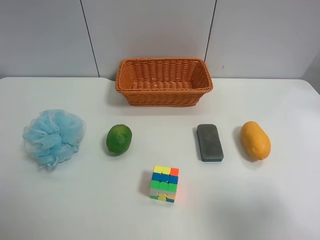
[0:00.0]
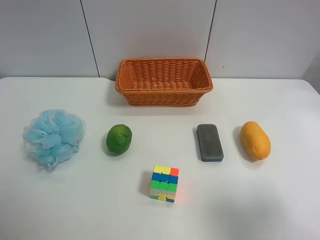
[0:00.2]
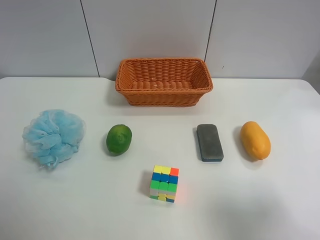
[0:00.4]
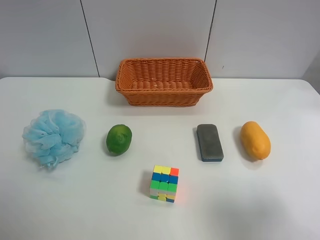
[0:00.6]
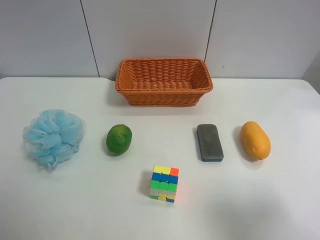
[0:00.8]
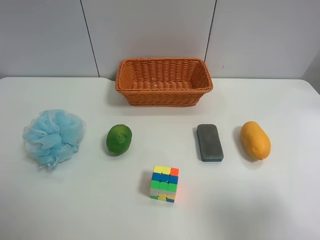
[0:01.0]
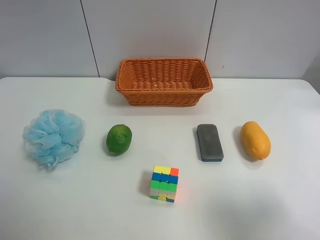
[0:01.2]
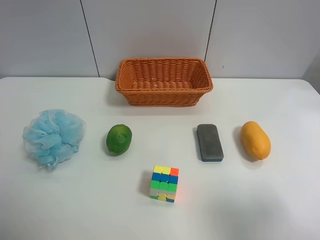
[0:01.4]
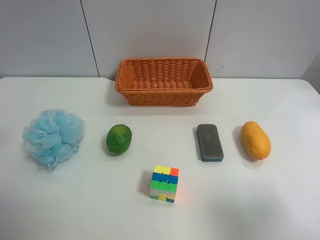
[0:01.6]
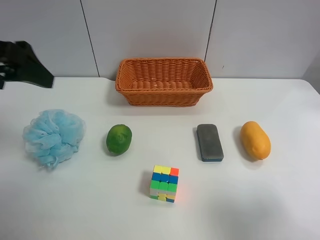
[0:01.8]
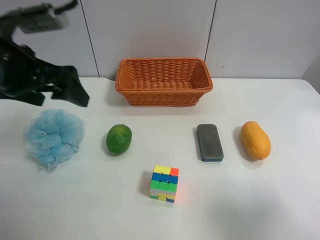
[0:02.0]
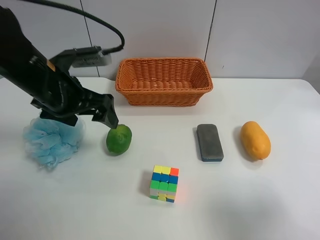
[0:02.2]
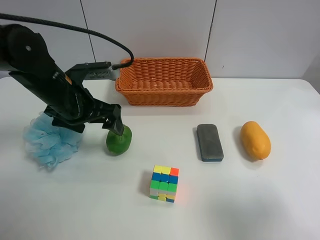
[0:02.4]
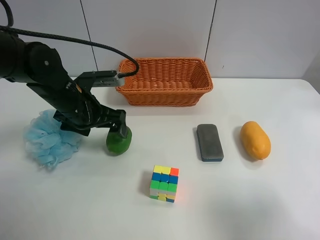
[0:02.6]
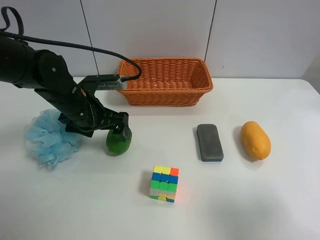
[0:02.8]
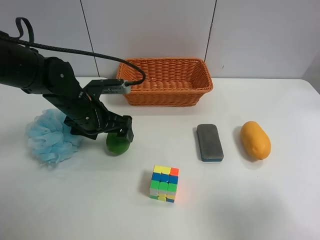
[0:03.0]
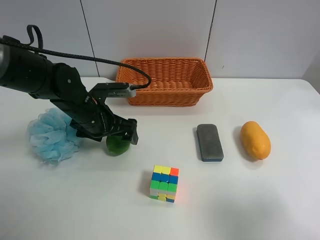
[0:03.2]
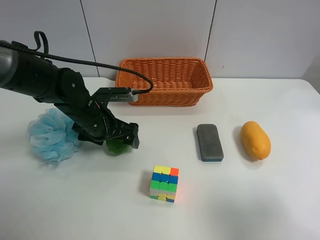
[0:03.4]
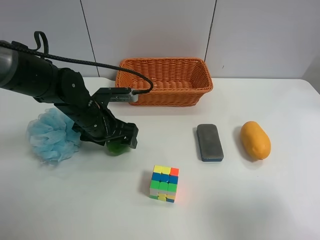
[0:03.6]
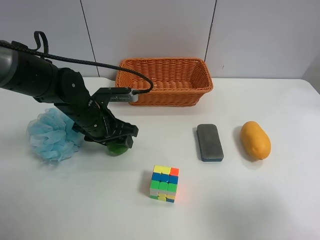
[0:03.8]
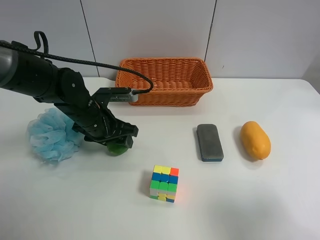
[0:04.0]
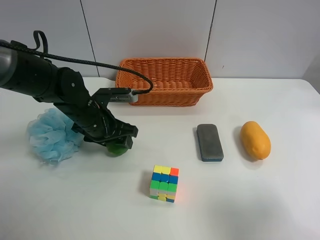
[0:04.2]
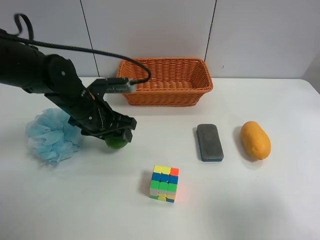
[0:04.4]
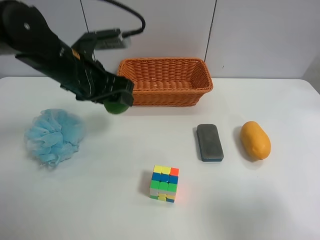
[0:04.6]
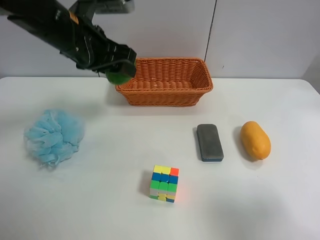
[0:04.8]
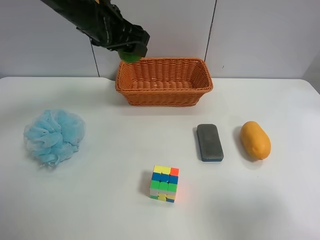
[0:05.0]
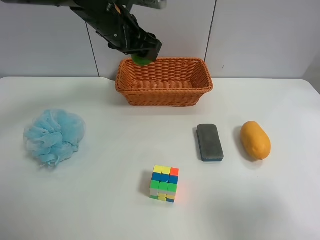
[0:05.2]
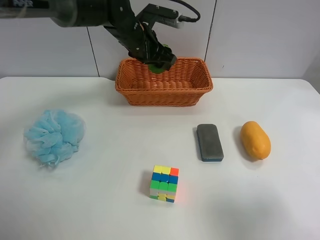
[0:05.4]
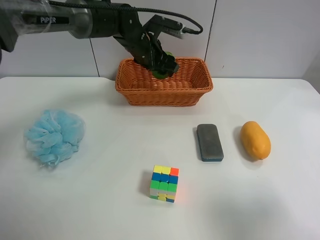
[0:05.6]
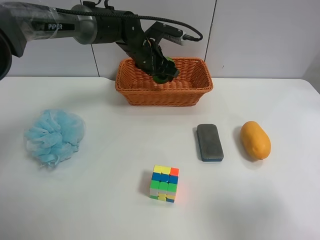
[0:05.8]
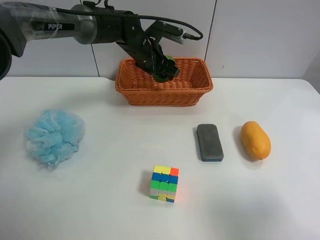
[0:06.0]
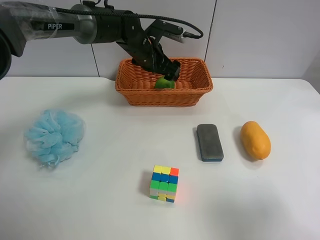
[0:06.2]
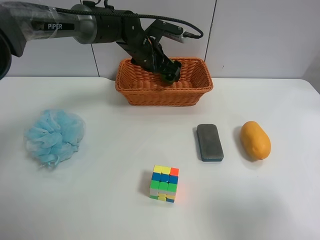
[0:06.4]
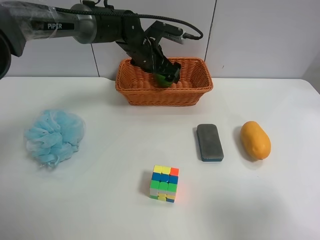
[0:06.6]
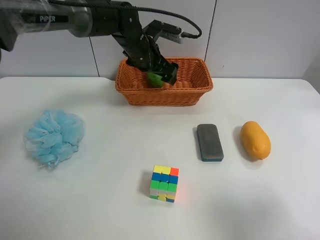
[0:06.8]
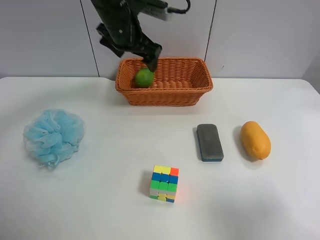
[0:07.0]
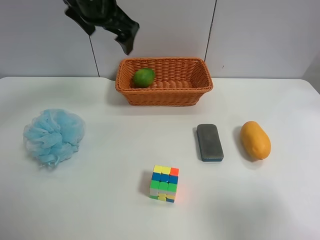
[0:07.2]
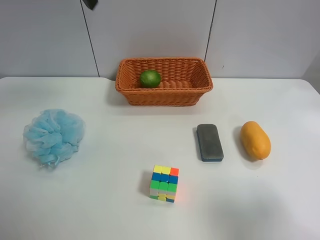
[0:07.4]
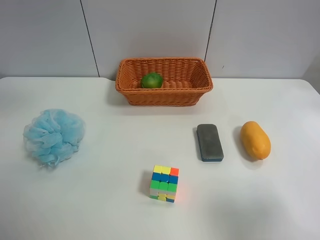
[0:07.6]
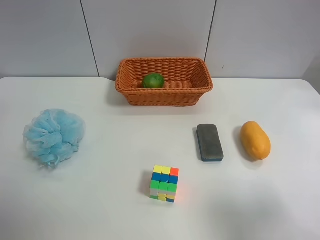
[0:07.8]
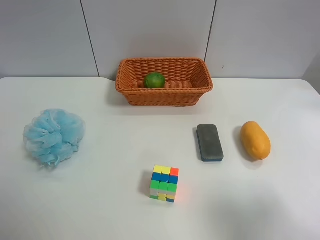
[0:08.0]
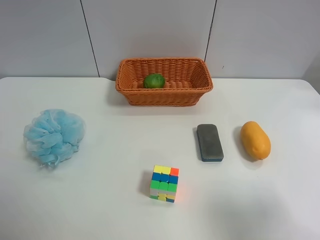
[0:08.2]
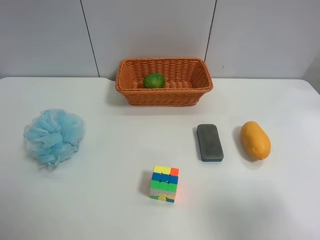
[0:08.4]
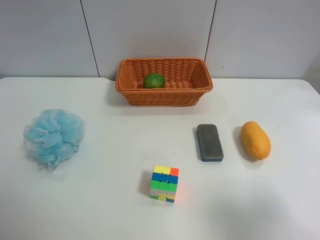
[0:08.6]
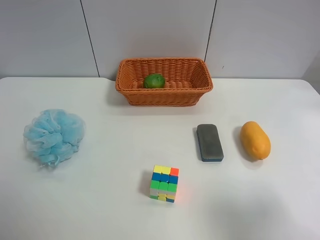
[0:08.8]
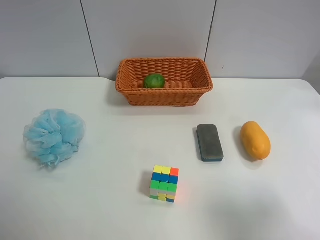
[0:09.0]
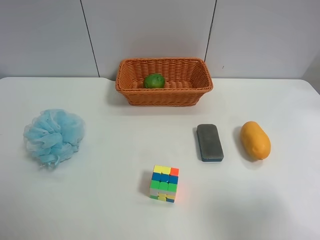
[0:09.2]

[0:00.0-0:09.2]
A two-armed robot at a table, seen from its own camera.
Task of the whole recording: use the left gripper to grab items from the table and place them in the basket.
Step, 0.0 to 3.6 s: Grasp the apple rubber puff with the left gripper.
Step, 3.8 to 6.6 s: Place the apple rubber puff into the basket with the left gripper.
1.6 to 3.0 s: The left gripper heads downward, to the right and forward, covering about 30 cm.
3.0 to 4.6 s: The left gripper travels upward by approximately 10 cm, and closes.
4.6 to 6.2 s: The left gripper travels forward and to the right by some 20 cm, and opens its fingers.
6.2 to 7.6 s: The left gripper goes approximately 40 cm upward, backward and to the left.

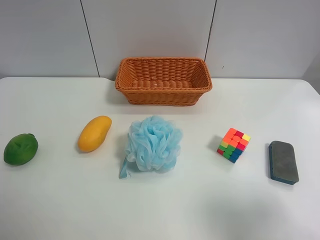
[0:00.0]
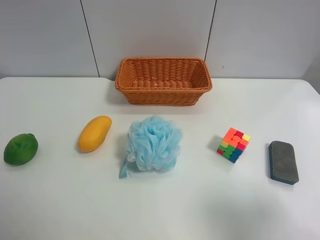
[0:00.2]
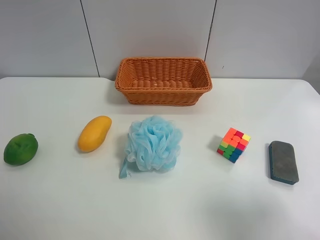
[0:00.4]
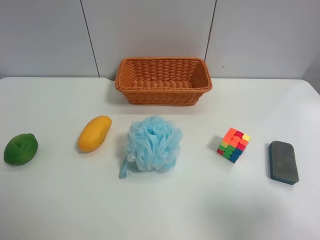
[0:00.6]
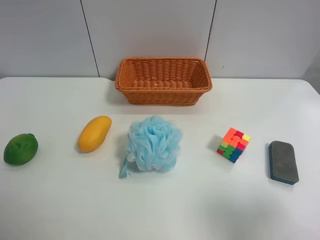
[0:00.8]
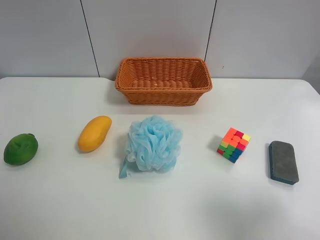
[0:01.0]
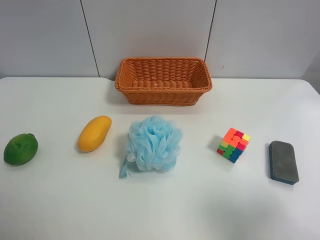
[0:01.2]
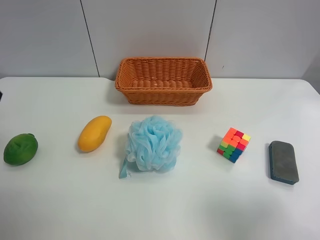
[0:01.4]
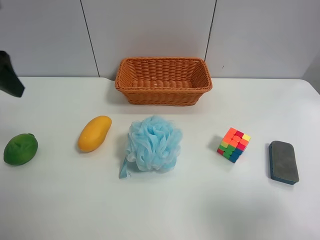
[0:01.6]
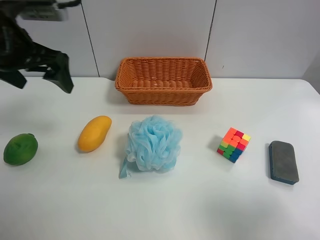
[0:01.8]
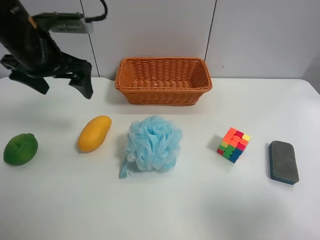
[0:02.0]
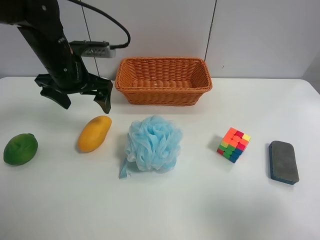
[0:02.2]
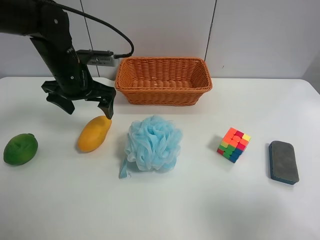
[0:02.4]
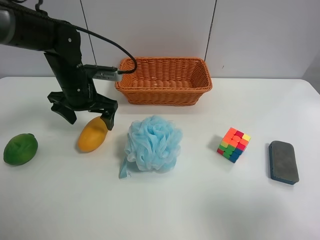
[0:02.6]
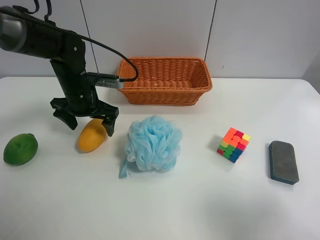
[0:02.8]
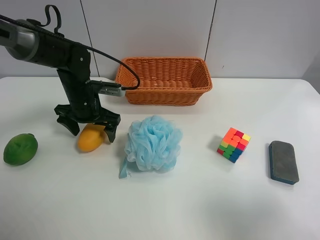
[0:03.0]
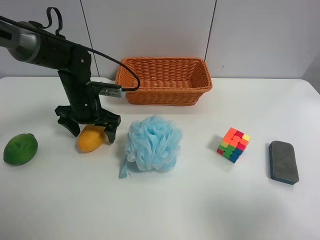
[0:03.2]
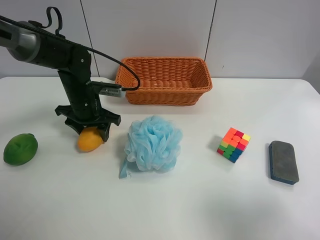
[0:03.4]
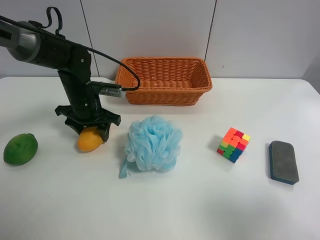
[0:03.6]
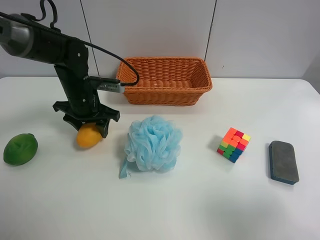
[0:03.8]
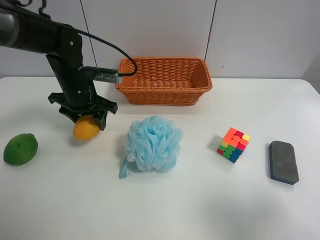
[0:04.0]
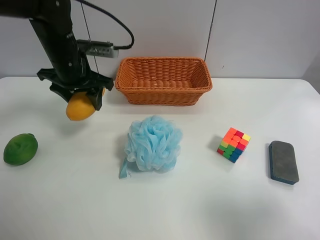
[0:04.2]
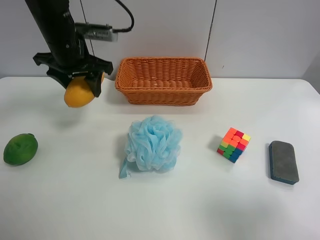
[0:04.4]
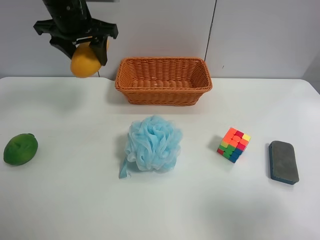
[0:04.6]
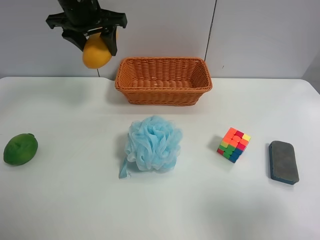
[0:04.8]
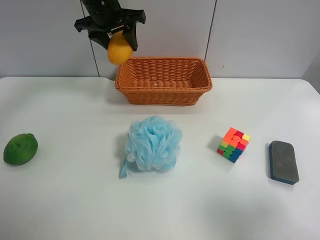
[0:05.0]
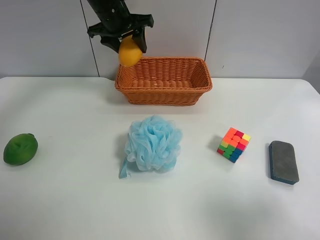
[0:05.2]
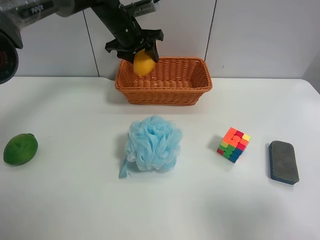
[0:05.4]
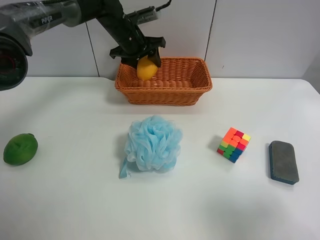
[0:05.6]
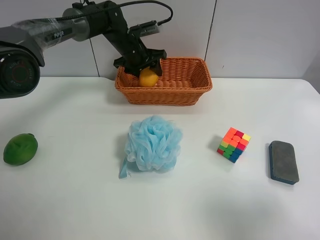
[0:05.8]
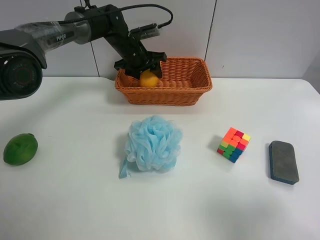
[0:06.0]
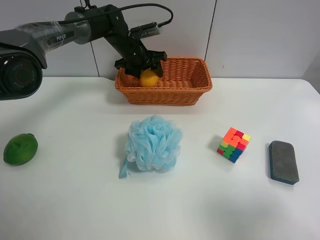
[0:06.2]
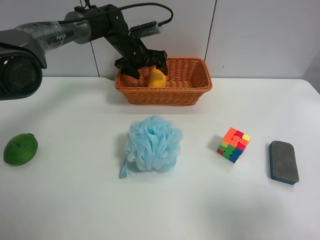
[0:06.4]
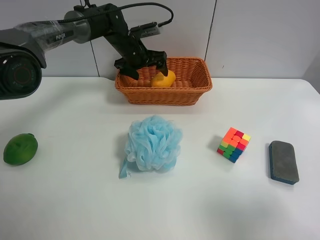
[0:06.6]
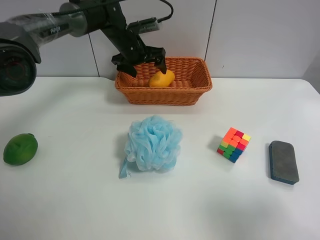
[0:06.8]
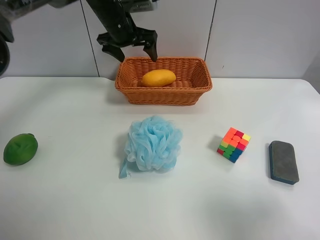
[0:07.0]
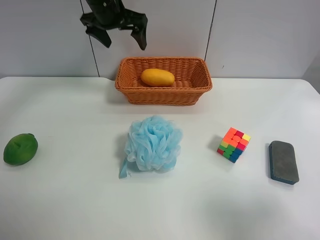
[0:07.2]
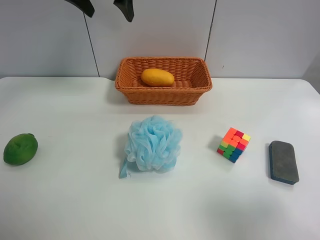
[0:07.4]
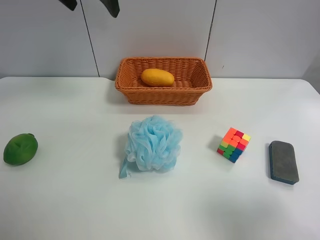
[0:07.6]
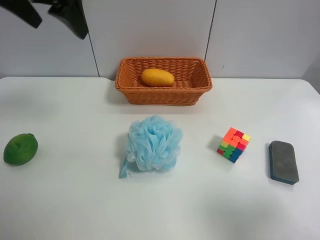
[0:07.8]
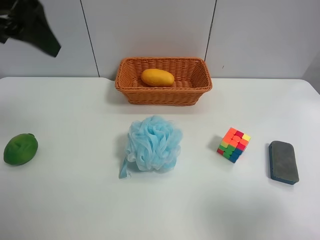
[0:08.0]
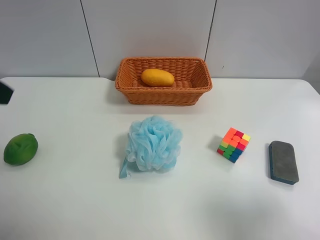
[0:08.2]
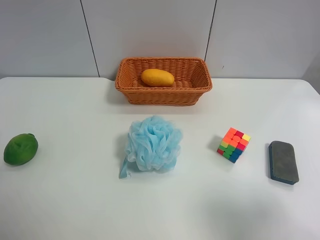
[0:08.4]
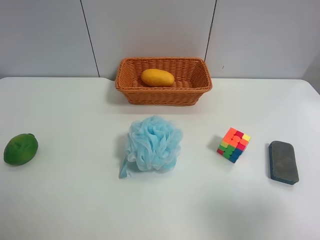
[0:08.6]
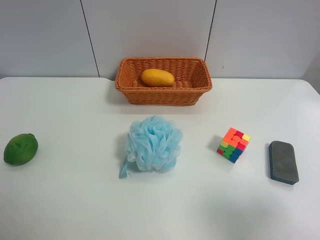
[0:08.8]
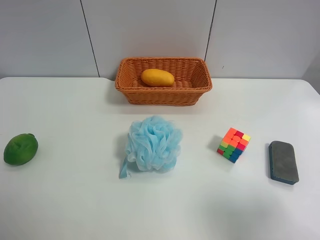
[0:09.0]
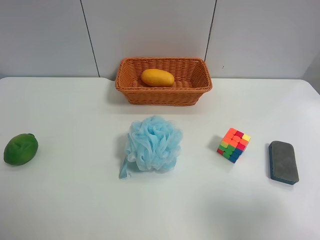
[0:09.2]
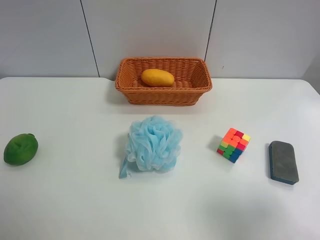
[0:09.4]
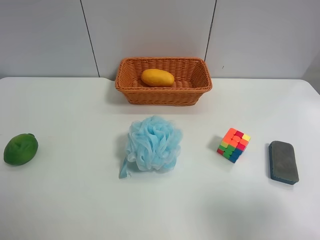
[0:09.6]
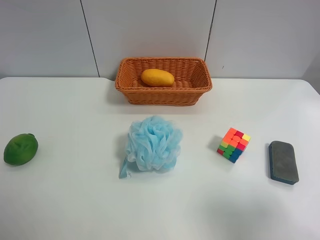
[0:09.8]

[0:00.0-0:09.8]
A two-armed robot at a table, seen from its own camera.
Task of the whole recording: use the left gripper to grab items from the table and place them in the basket.
Step, 0.0 to 3.4 s: Grasp the mango with the left gripper.
Step, 3.6 to 6.4 s: Place the mango into the basket with the left gripper.
1.4 to 2.8 s: The left gripper travels downward, forward and to the right by about 30 cm.
2.8 to 4.2 s: The left gripper is displaced upward by about 10 cm, and closes.
4.2 to 5.6 s: The left gripper heads forward and to the right, covering about 15 cm.
5.6 to 7.0 s: The left gripper ends up roughly 5 cm from where it was, and opens up.
7.0 to 8.4 s: The left gripper travels backward and to the left by about 40 cm.

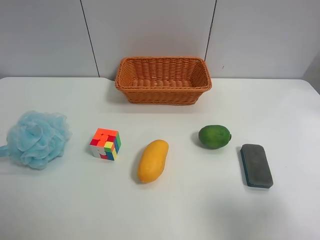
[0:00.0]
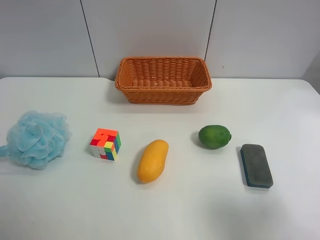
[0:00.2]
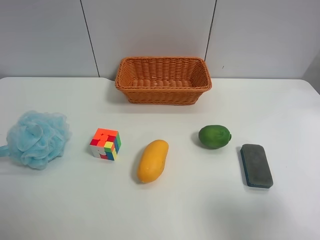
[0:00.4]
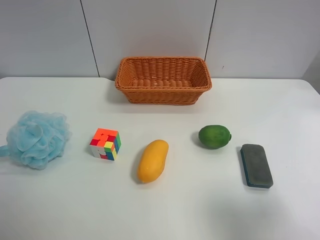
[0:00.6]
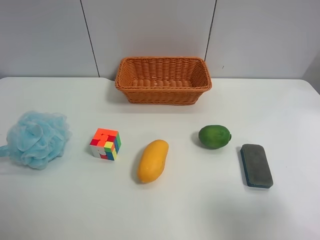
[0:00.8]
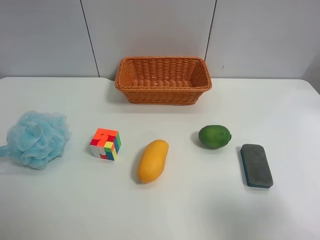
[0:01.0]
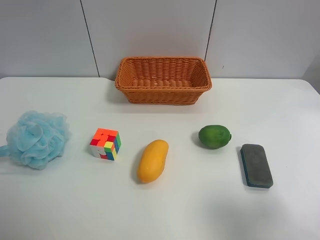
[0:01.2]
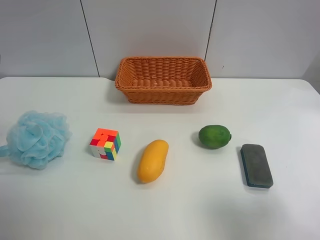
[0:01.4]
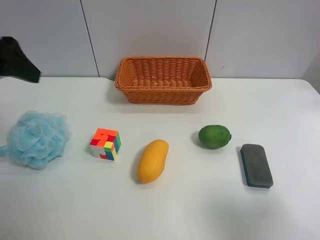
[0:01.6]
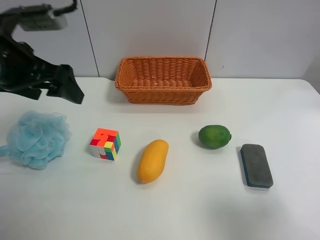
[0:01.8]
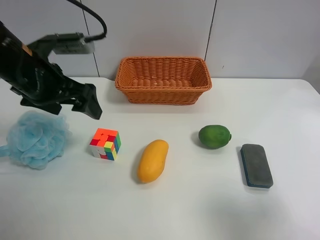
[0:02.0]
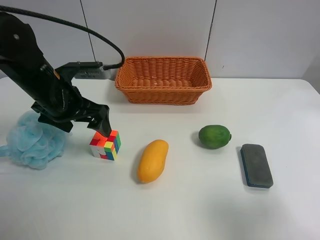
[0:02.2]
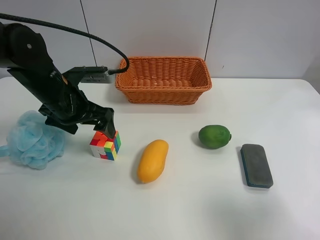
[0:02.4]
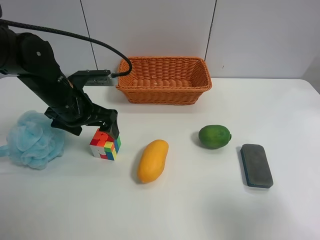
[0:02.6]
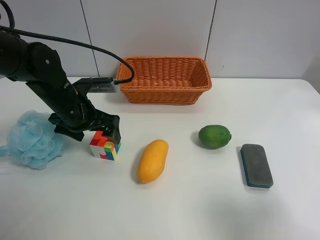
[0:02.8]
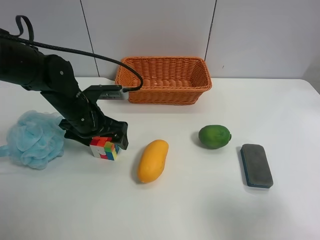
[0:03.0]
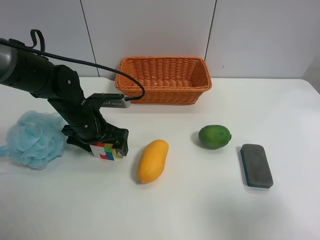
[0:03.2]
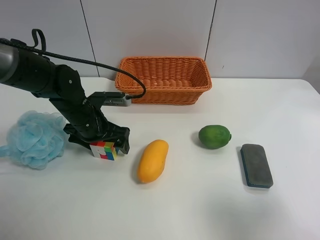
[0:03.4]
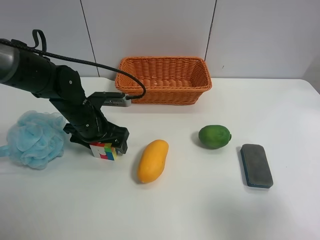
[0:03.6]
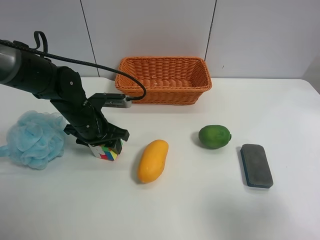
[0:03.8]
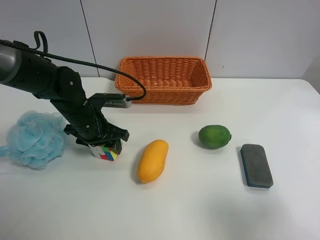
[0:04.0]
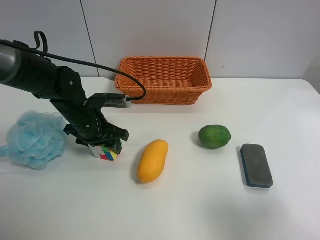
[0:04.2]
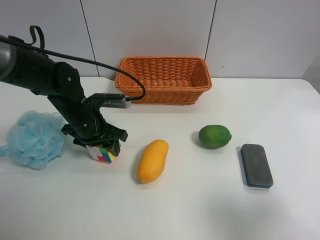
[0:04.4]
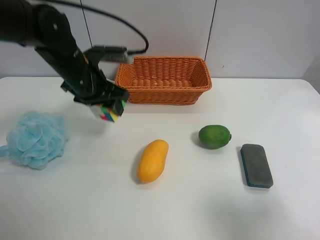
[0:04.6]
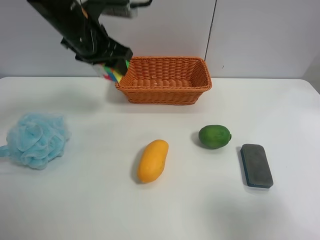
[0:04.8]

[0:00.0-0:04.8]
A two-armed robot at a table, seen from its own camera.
Task of the whole recording: use the left gripper to grab items from the table and place them in the basket.
Step, 0.0 to 4.0 s: Grasp the Rubik's Cube with the left gripper.
0.0 to 1.6 s: The left gripper travels forward by some 25 cm.
1.6 to 3.2 s: The left gripper heads downward and to the right, covering approximately 25 cm.
3.2 to 4.8 s: The left gripper travels upward by about 20 cm, and closes.
